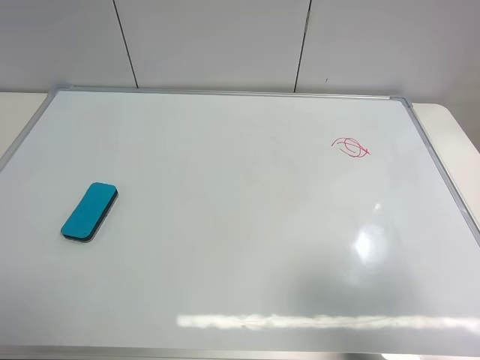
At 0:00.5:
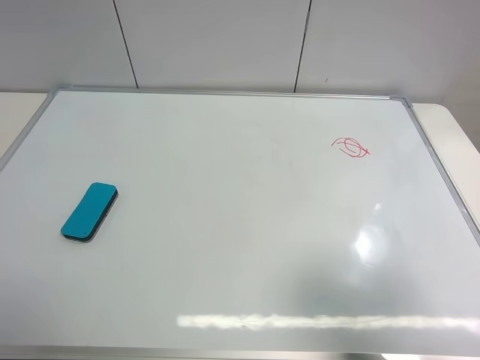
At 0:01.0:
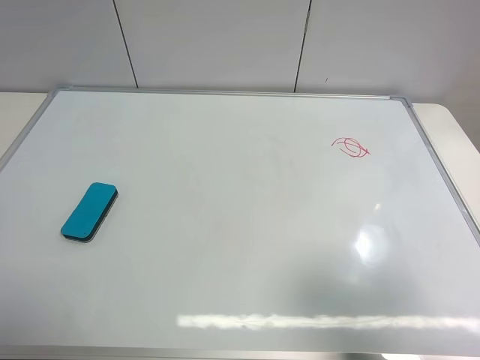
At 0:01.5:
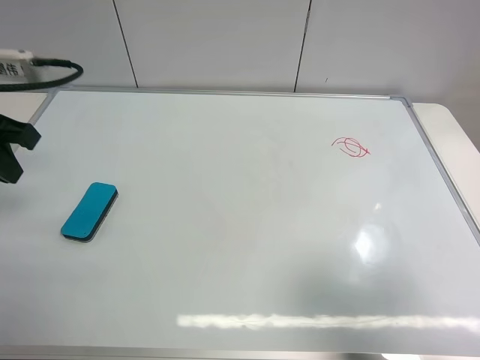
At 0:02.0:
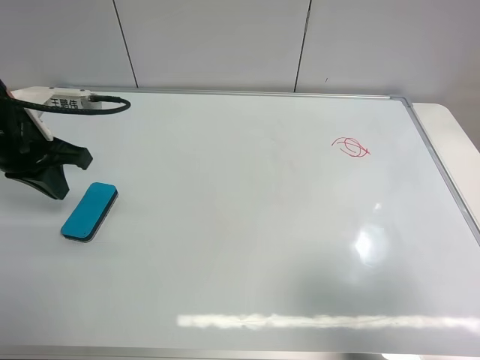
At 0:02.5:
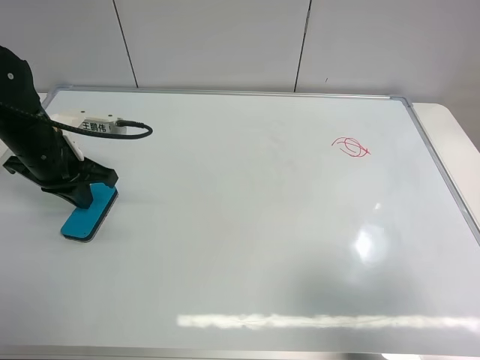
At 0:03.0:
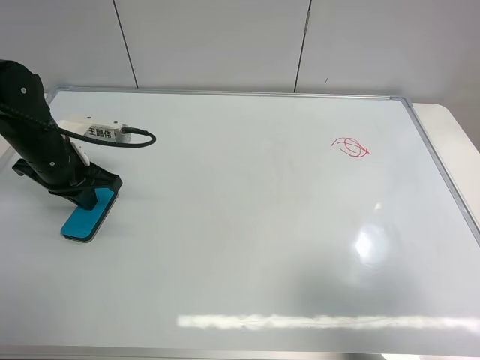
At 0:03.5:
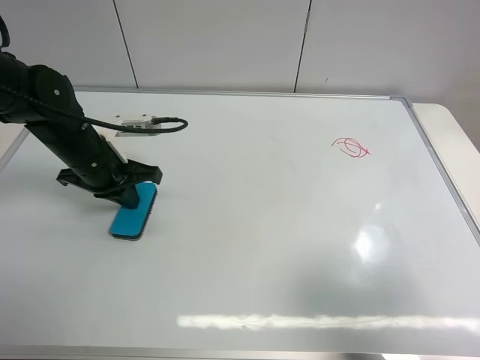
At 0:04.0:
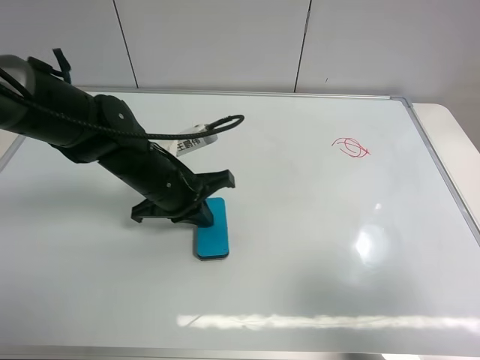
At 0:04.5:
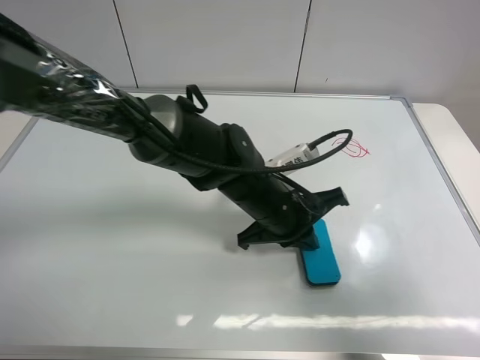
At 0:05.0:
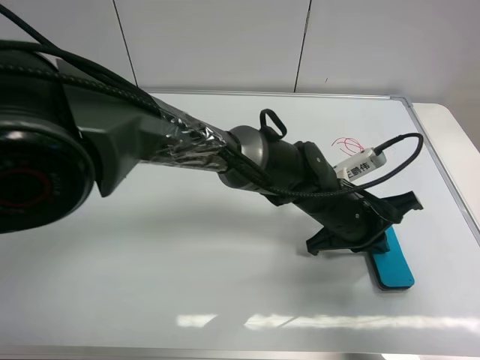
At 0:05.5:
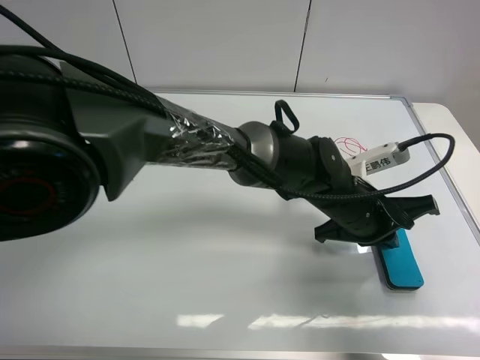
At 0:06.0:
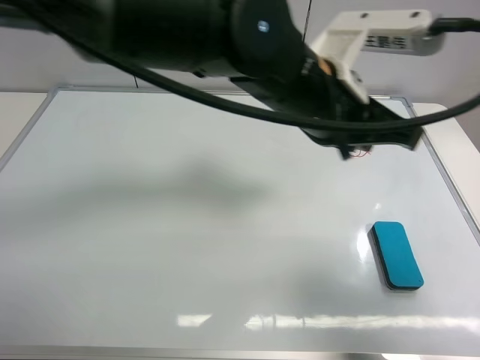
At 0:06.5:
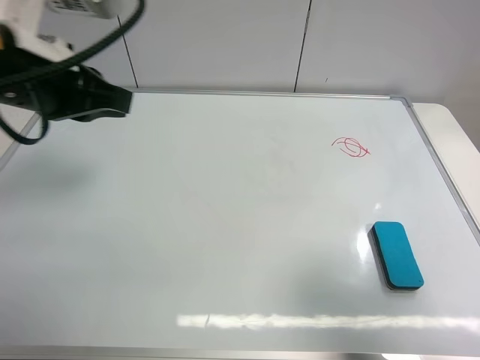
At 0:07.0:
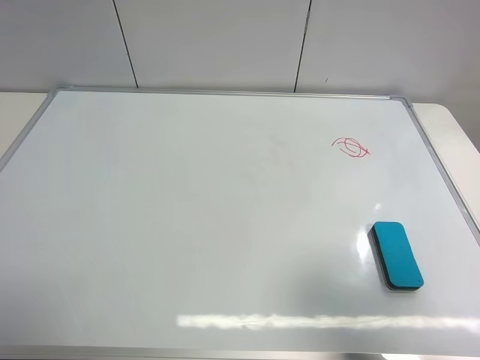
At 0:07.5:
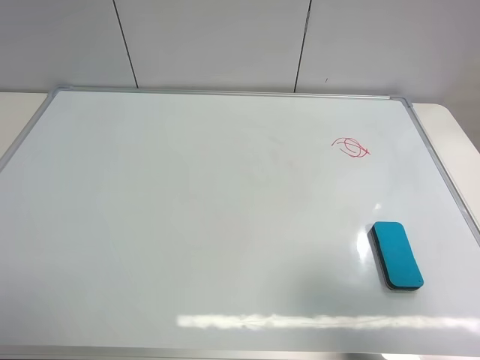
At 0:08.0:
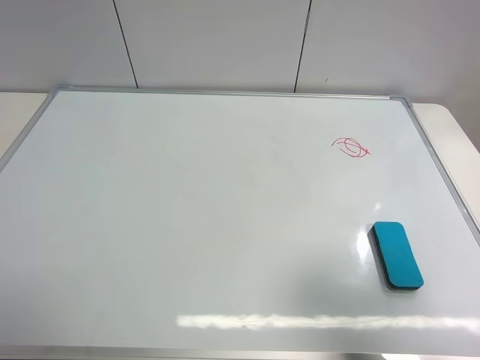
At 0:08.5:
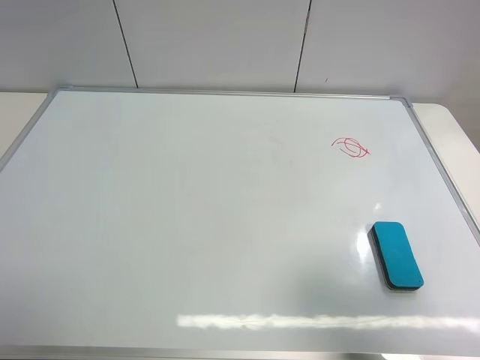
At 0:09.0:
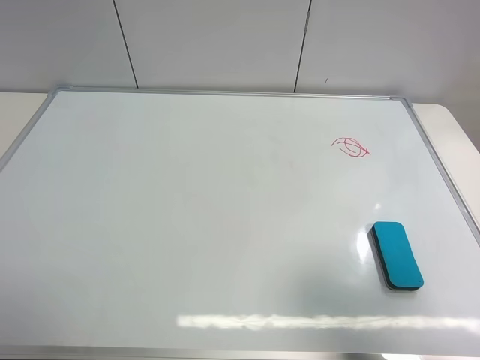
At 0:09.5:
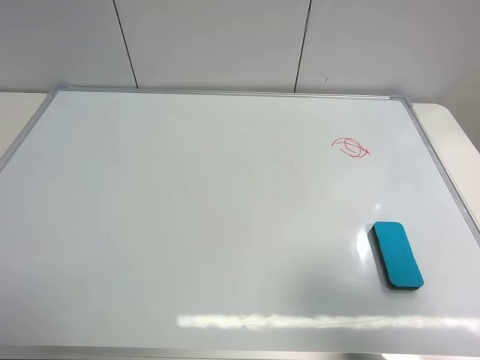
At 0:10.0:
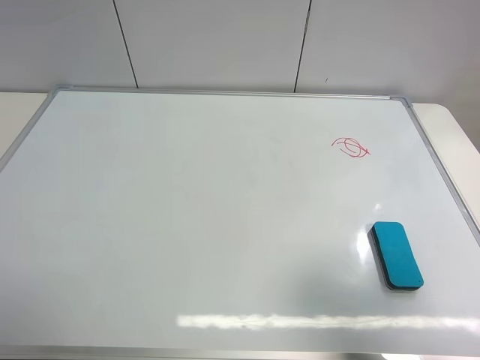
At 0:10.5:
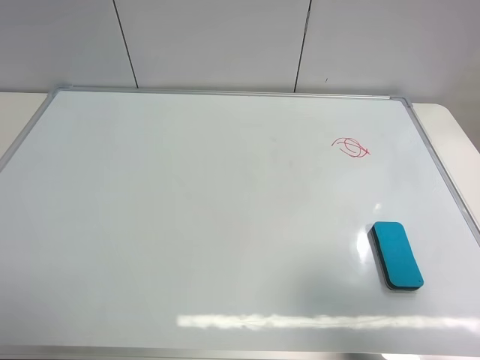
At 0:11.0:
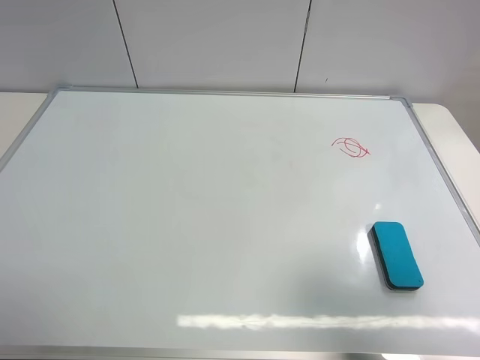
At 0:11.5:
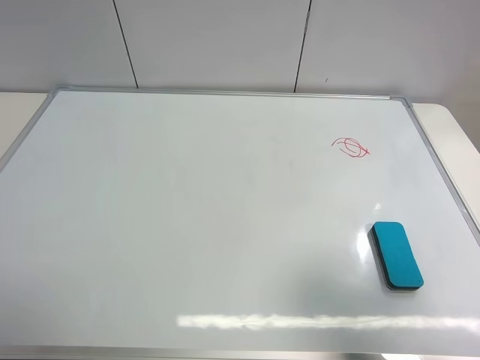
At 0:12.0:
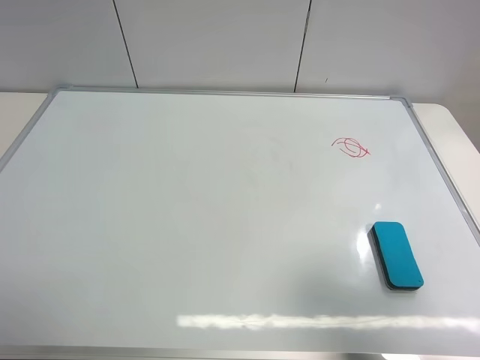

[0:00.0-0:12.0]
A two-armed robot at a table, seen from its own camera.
Task of the whole recording: use the left gripper to place the eraser in the right, use the right gripper to pick up the eraser, wipe the notes on the whiteboard clean, and then put it down.
Step, 0:00.0 to 0:05.5: Move the board eraser to the right of the whiteboard with left gripper.
0:00.0 to 0:02.0: The left gripper is displaced forward by roughly 30 cm, and closes up.
0:02.0 to 0:04.0: The left gripper travels to the right and downward by approximately 20 cm.
0:04.0 to 0:06.0: The left gripper heads to the right and upward, covering some 20 cm.
0:06.0 to 0:08.0: The left gripper goes about 50 cm to the left and backward, and opens.

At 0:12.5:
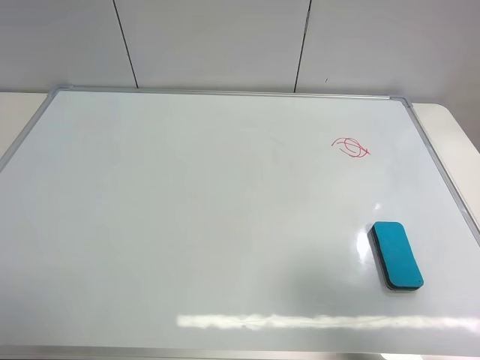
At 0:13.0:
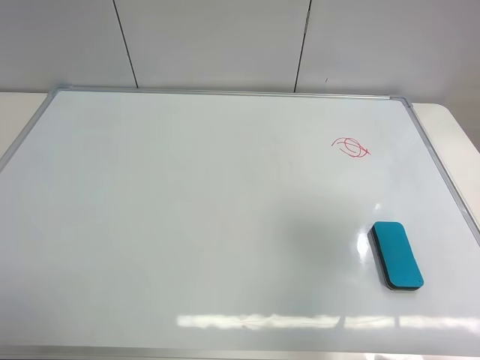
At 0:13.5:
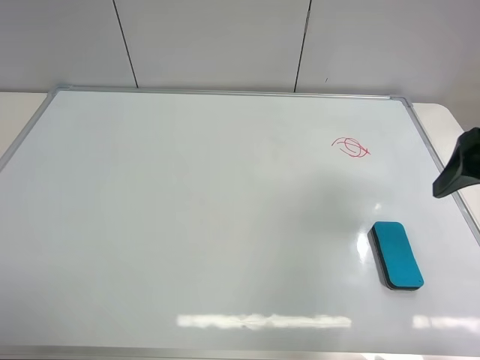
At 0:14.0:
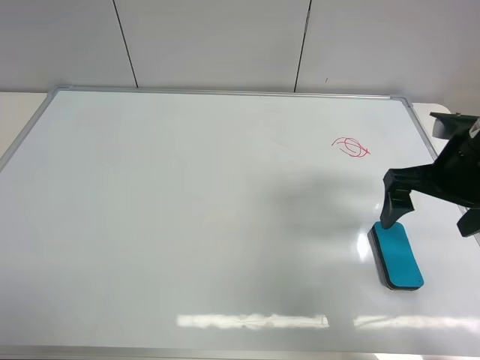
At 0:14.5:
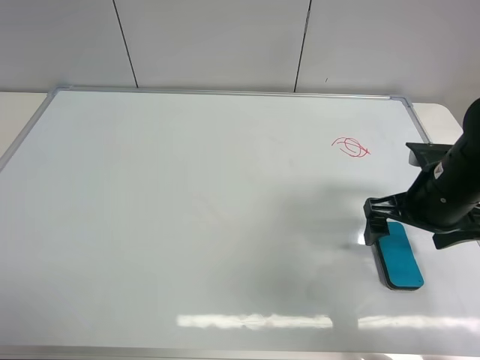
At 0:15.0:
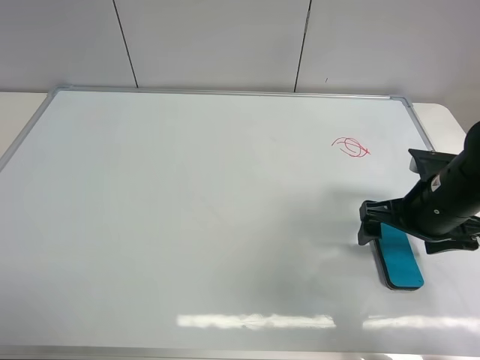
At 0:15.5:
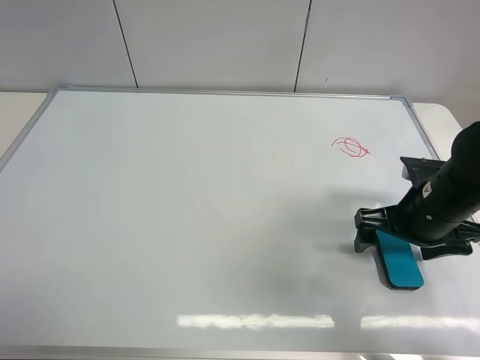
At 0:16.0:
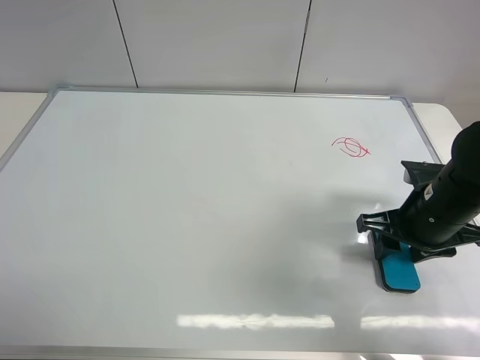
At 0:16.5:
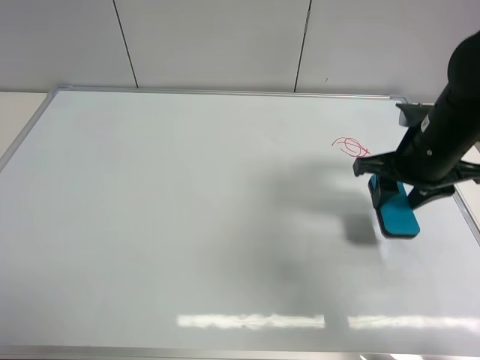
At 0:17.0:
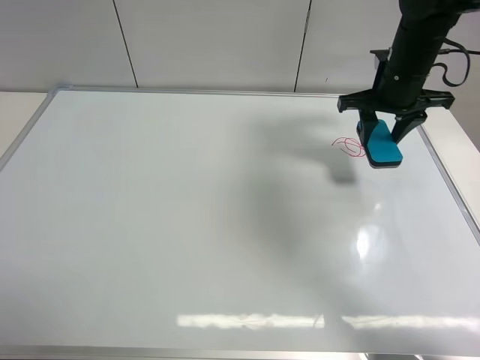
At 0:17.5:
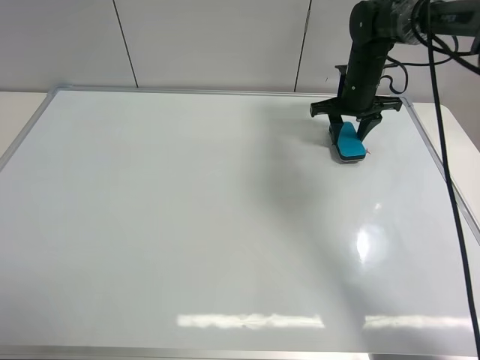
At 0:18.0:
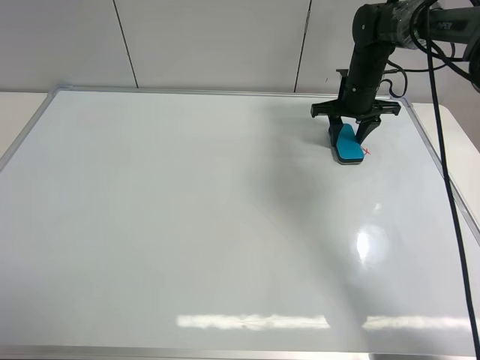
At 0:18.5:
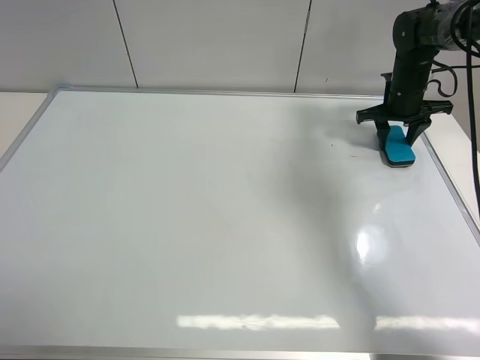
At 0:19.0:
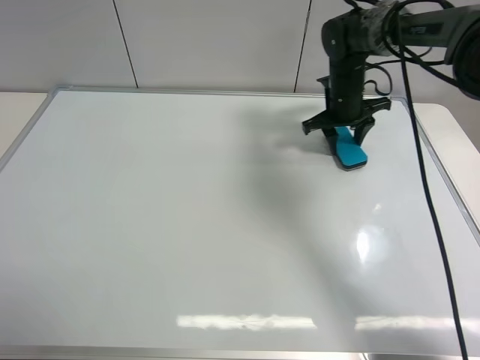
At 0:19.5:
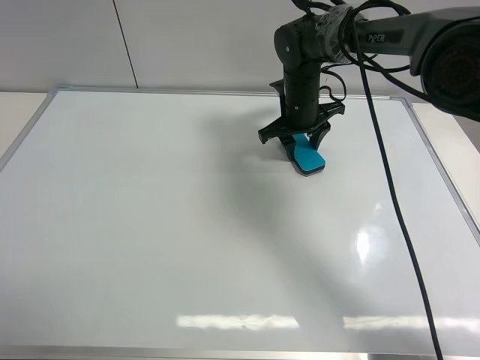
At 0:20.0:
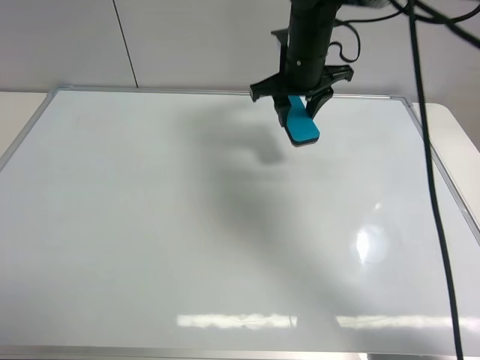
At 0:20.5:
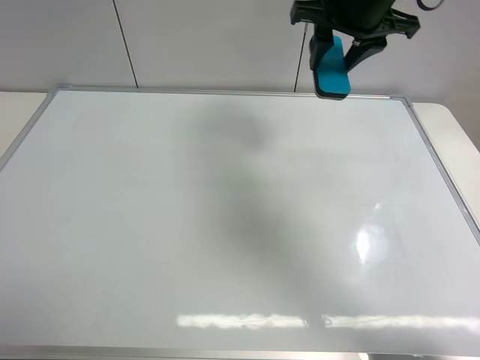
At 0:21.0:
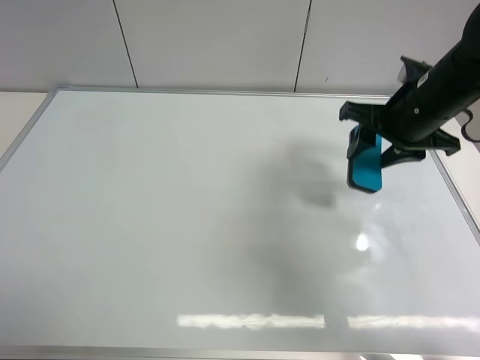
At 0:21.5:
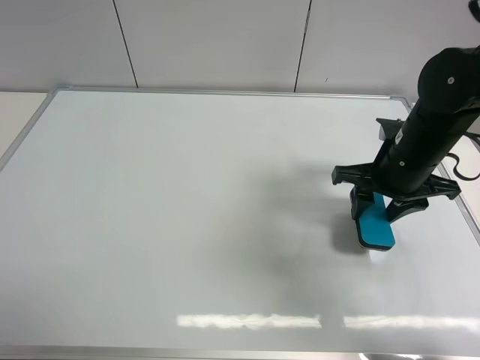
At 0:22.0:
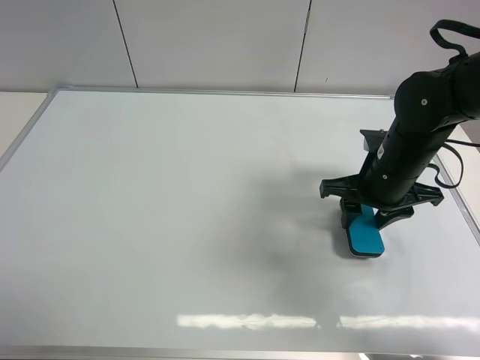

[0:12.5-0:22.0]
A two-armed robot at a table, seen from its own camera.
Task of the whole recording: use the left gripper to place the eraser in the right, use the right gripper to pick up the eraser, wipe the notes on the whiteboard clean, and then put it down.
Step, 0:12.5 to 0:16.0: Pick up the board eraser with right gripper.
Step, 0:16.5 to 0:19.5: Wipe off the writing on the board with right gripper.
0:12.5 to 0:14.5: The right gripper travels forward and downward by approximately 25 cm.
0:14.5 to 0:16.5: The right gripper heads forward, covering roughly 5 cm, and closes.
0:16.5 to 0:18.0: The right gripper goes some 20 cm forward.
0:18.0 to 0:20.0: The right gripper goes some 20 cm to the left, upward and backward.
0:20.0 to 0:22.0: The right gripper is displaced backward, to the right and downward by approximately 20 cm.

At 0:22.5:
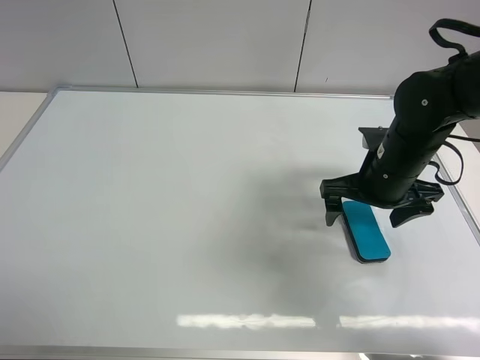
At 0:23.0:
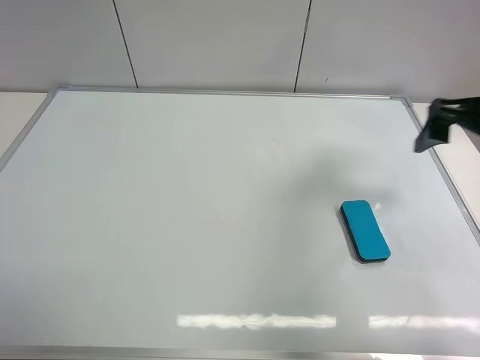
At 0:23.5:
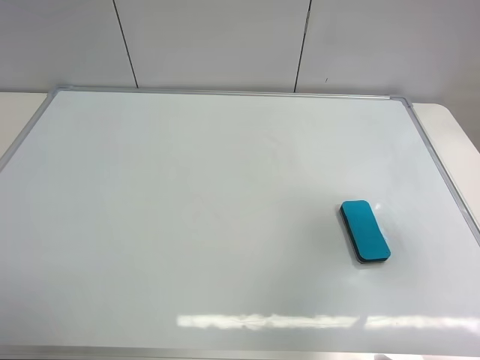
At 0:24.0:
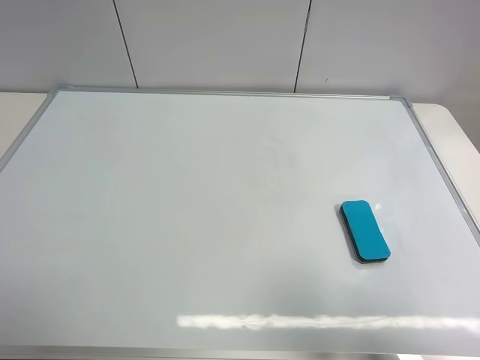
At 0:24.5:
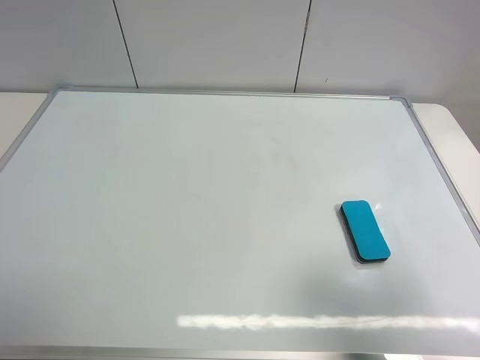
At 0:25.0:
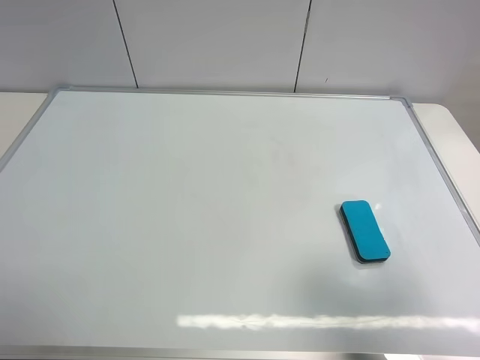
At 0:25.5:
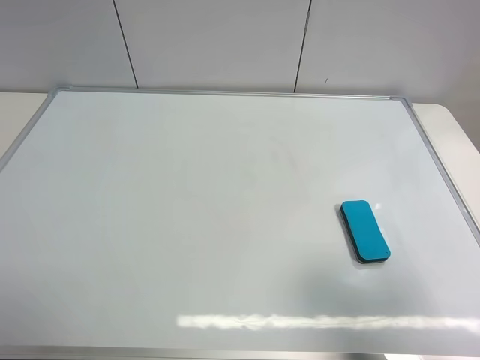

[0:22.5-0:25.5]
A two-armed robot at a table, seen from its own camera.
Task of the whole recording: use the left gripper to place the eraser in the right, use the right gripper to pick up the eraser, wipe the notes on the whiteboard clean, and then put it down.
0:22.5 to 0:24.0: The right gripper goes about 40 cm backward and upward.
0:24.0 to 0:25.5: The right gripper moves downward and forward, about 10 cm.
